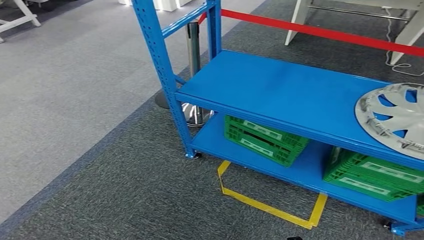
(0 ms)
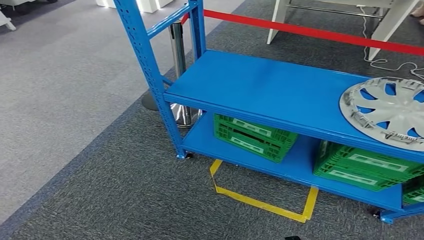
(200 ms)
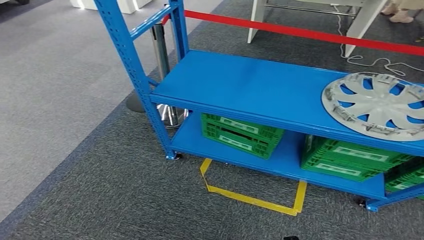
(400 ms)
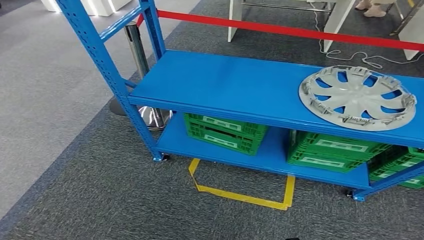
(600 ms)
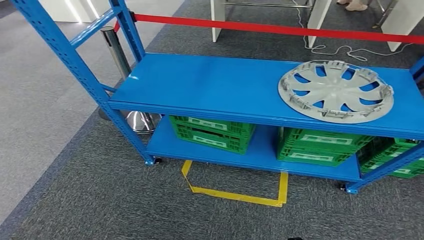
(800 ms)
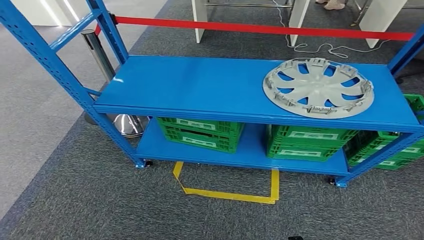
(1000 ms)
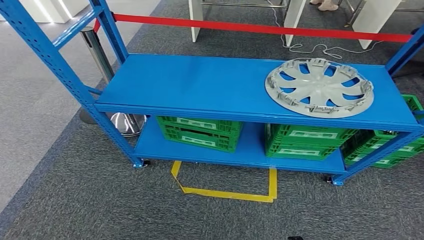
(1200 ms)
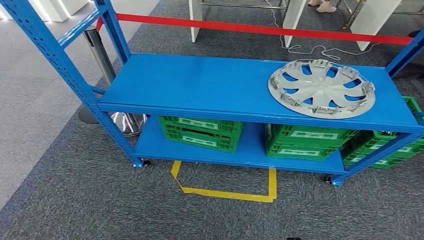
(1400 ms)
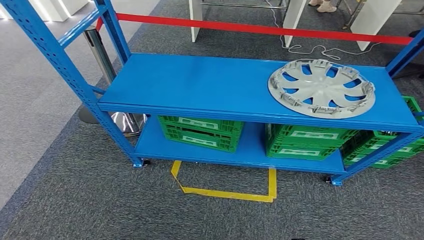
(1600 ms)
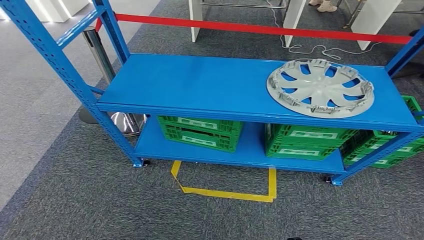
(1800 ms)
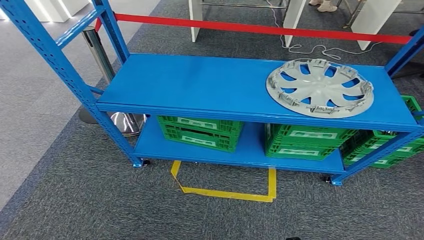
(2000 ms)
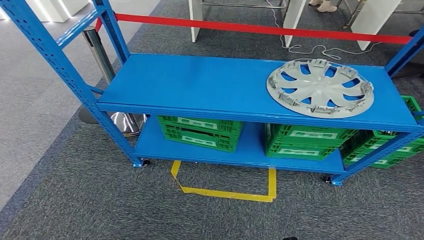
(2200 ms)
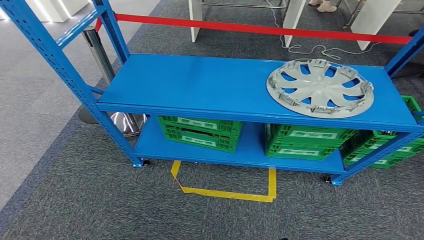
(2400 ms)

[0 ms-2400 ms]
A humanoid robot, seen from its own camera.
Step, 0 ms to 2400 ms: Move to the initial position at the workbench.
